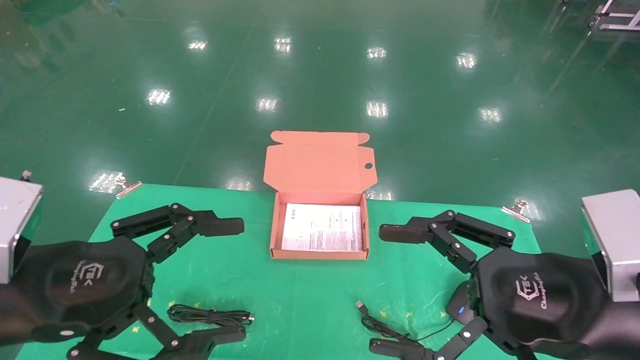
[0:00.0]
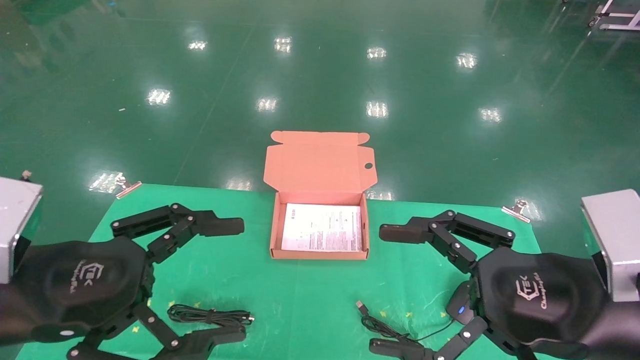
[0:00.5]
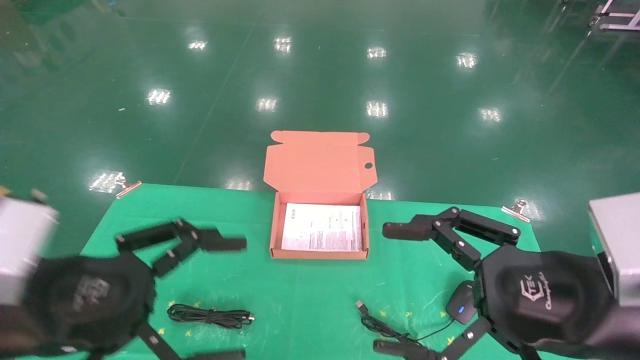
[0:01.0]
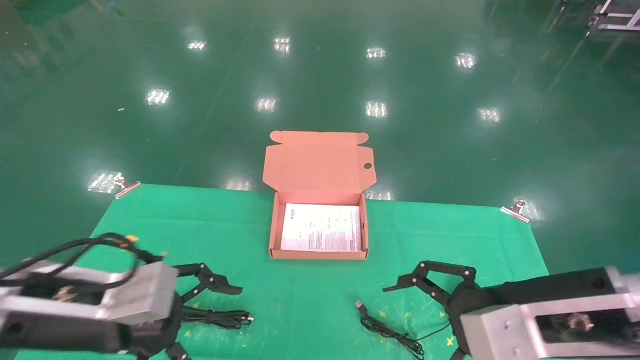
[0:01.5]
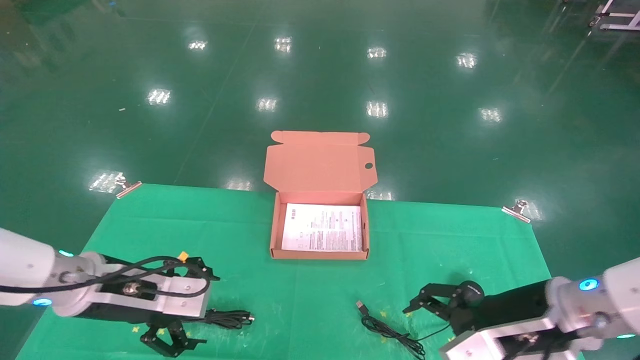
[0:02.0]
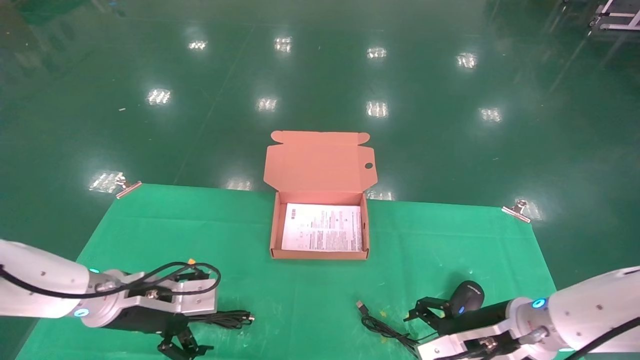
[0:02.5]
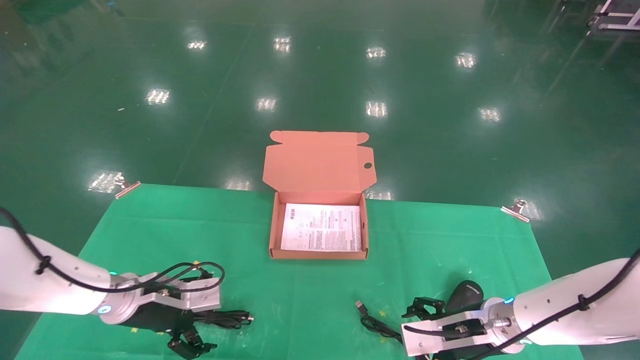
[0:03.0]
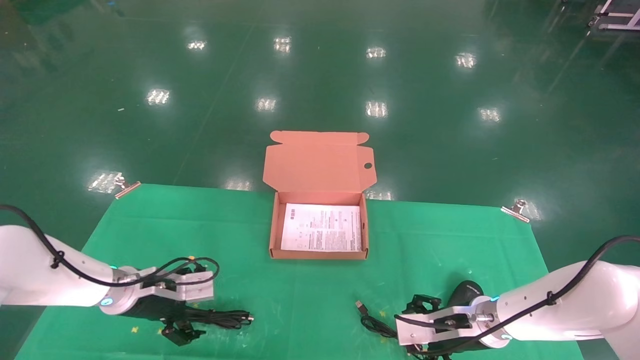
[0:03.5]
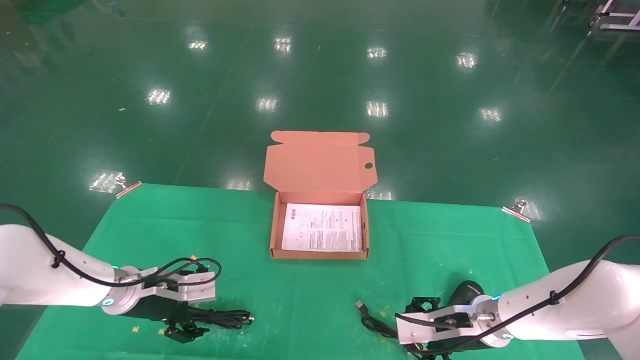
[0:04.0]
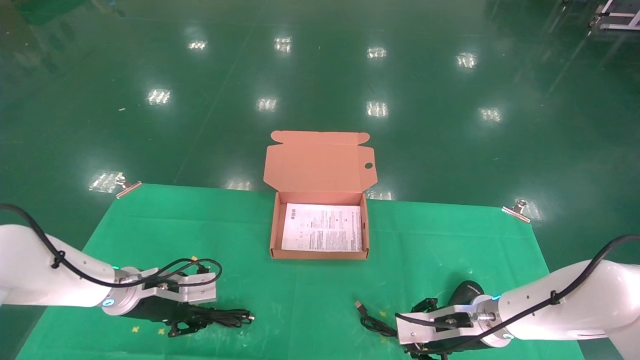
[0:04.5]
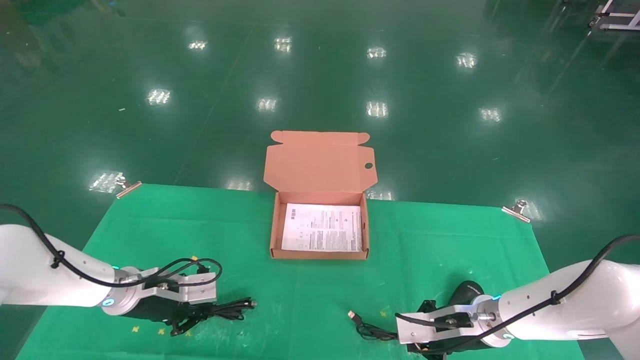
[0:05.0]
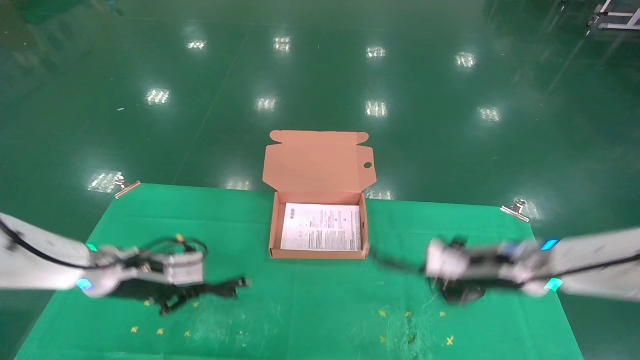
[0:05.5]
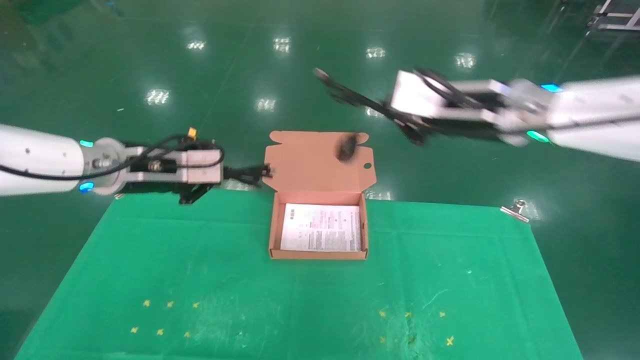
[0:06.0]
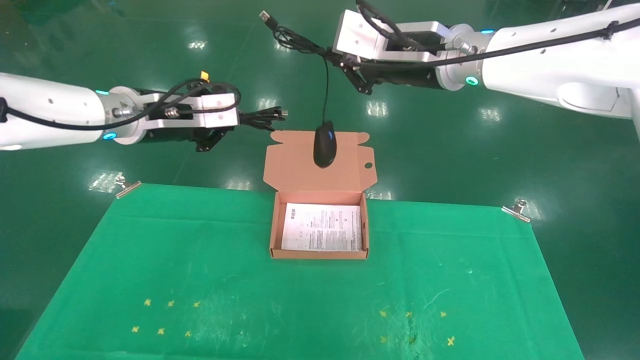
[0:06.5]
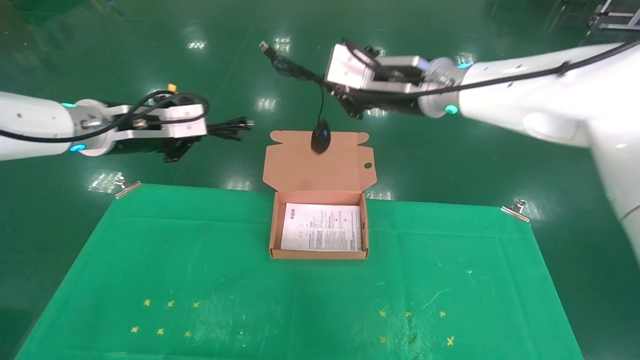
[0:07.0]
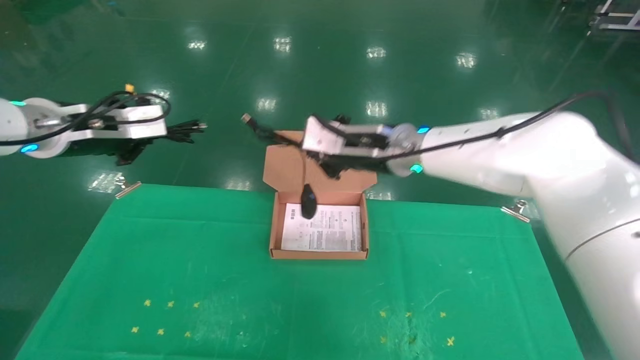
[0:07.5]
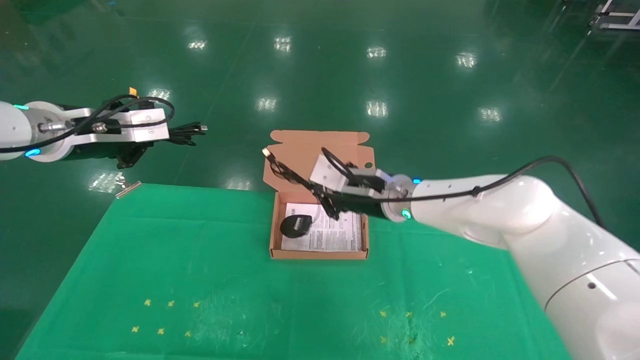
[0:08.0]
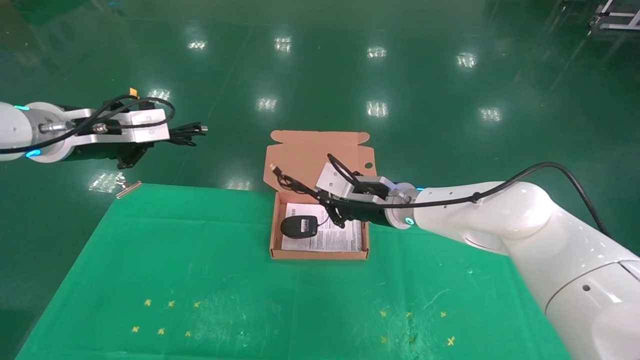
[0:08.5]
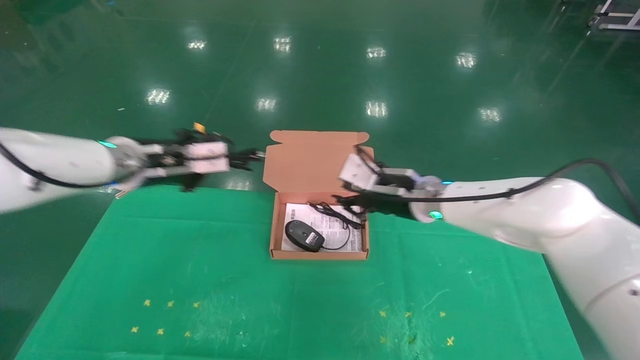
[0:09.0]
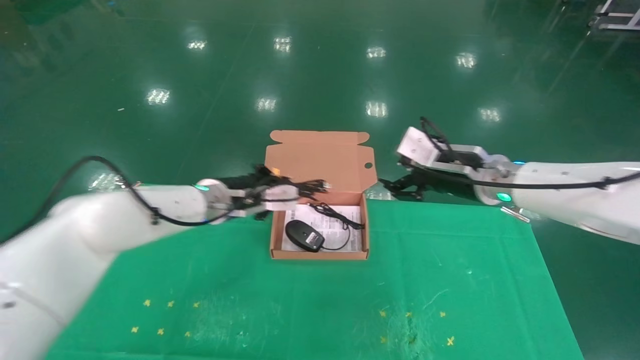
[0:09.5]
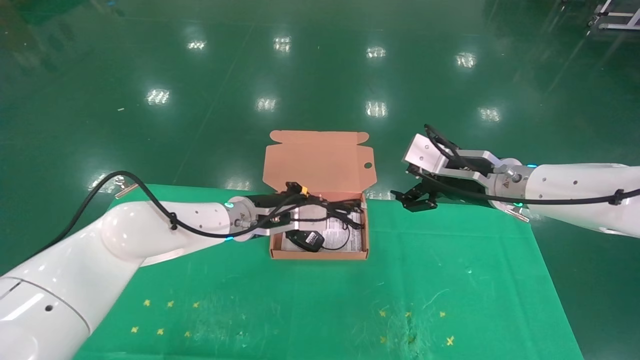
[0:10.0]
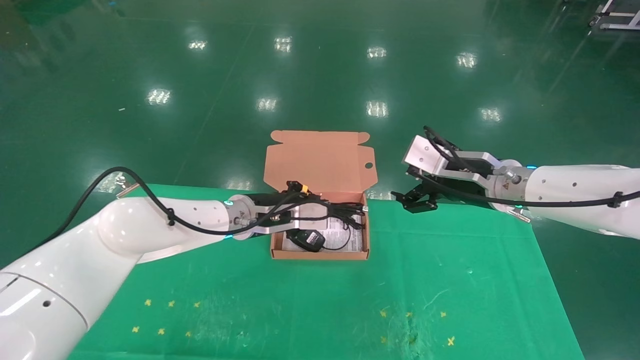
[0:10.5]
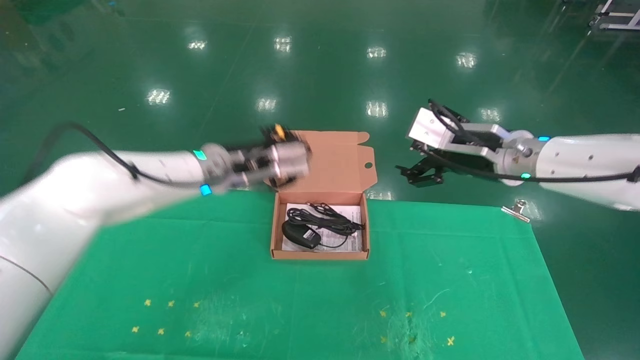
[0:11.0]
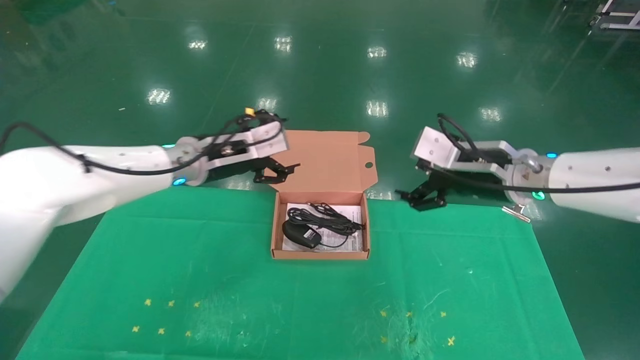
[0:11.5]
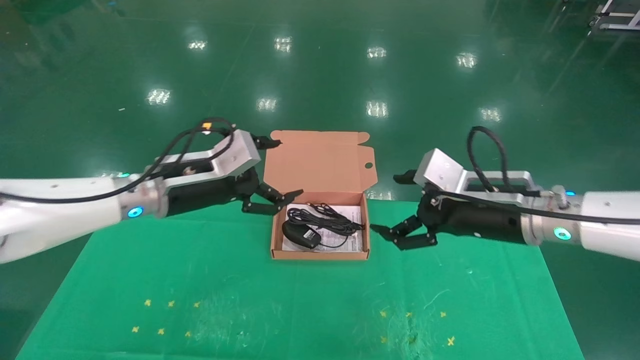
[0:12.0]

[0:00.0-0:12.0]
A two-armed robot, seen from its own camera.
Task of the whole recording: grasp data cable left put into box grasp mouse right put into box.
Step, 0:01.5 to 0:05.5: Grab and pick up both the mouse and power cord from the accessory packaging area at the same time.
Step, 0:06.0 to 0:11.0: Place the mouse and power cord into the box.
0:00.0 to 0:02.0: The grippers both shift forward and downward by some 15 cm.
0:02.0 to 0:04.0: The two grippers go some 15 cm forward and downward.
0:04.0 to 0:06.0: The two grippers go roughly 25 cm upward. The right gripper closes its fingers. The left gripper closes its fingers.
0:06.0 to 0:08.0: The left gripper moves to the left, about 5 cm. The right gripper shifts about 20 cm downward, to the left and forward.
0:08.0 to 0:10.0: The right gripper heads to the right, covering some 15 cm, and opens. Meanwhile the left gripper moves to the right, downward and forward, roughly 25 cm.
0:10.0 to 0:12.0: The left gripper moves to the left, backward and upward, roughly 15 cm, and opens. The right gripper heads backward, covering roughly 5 cm.
